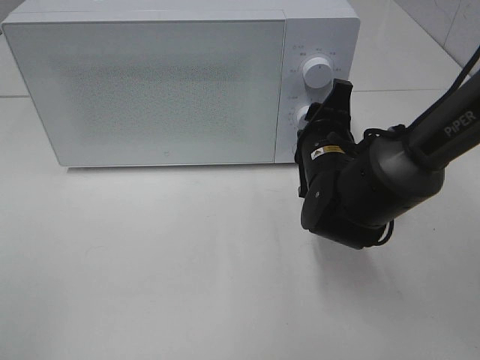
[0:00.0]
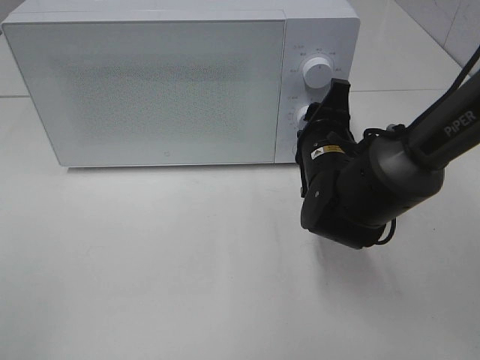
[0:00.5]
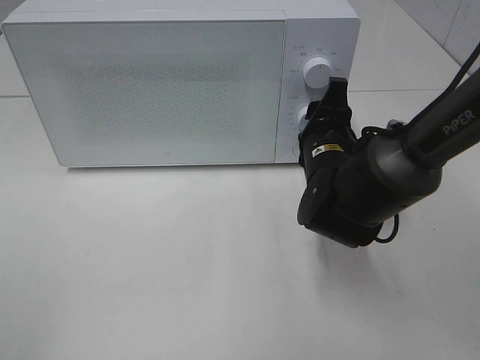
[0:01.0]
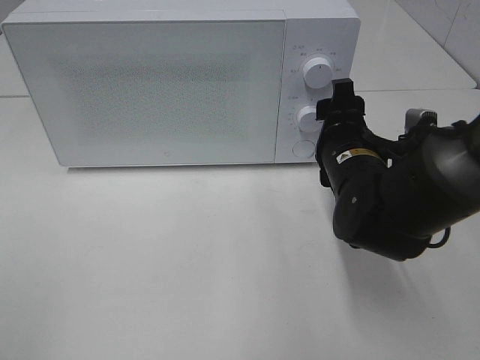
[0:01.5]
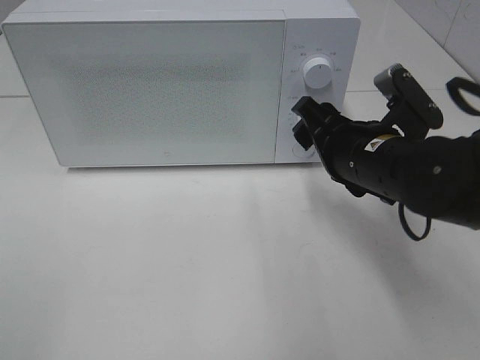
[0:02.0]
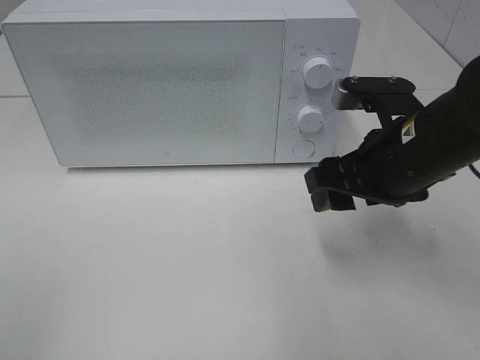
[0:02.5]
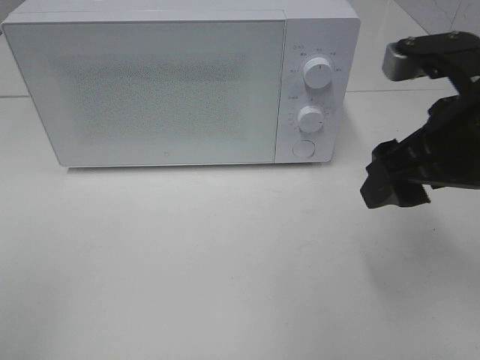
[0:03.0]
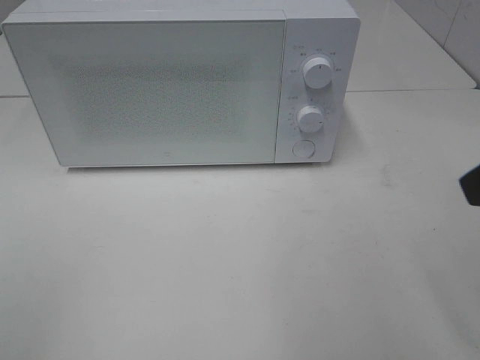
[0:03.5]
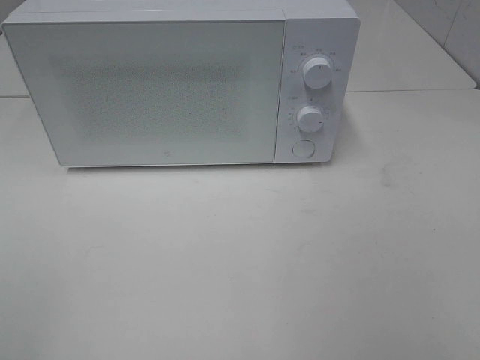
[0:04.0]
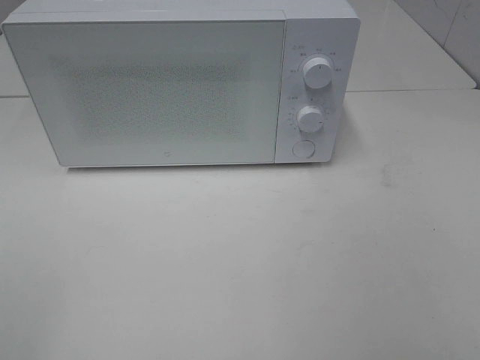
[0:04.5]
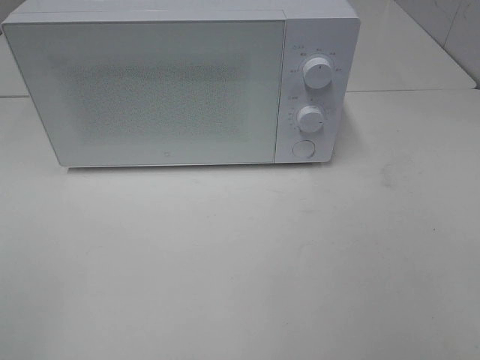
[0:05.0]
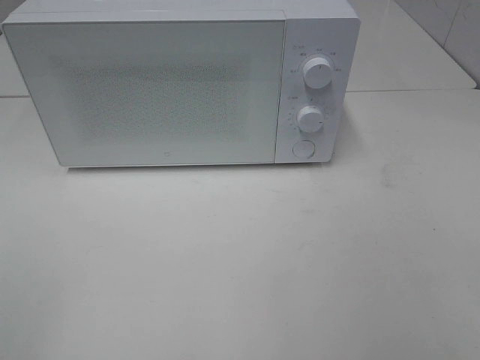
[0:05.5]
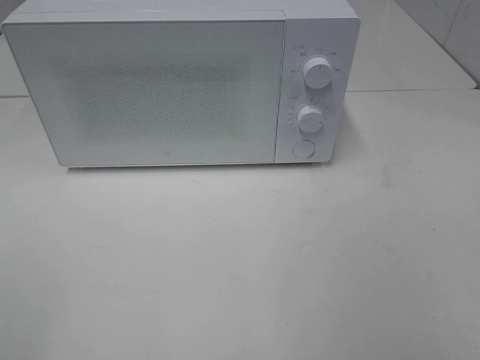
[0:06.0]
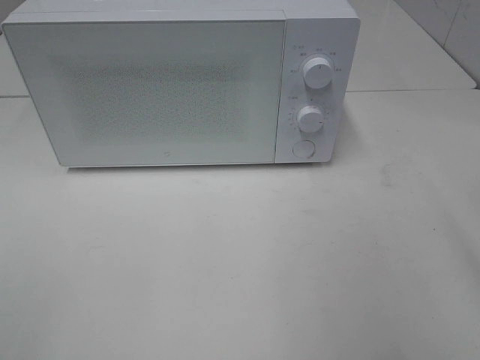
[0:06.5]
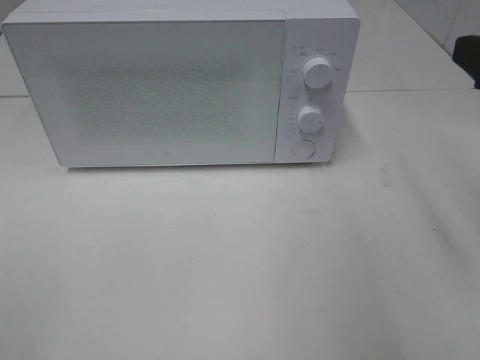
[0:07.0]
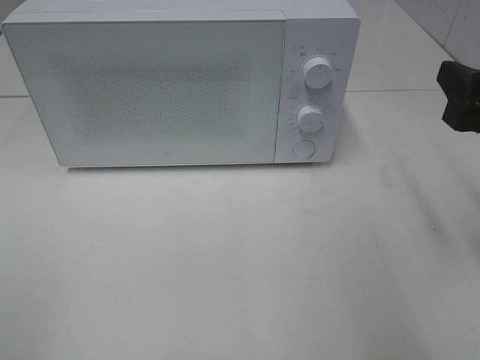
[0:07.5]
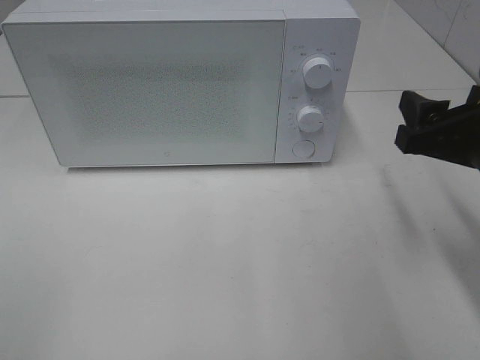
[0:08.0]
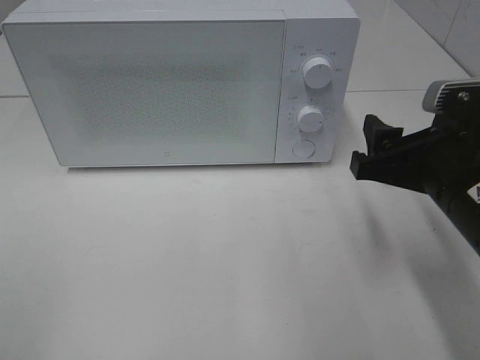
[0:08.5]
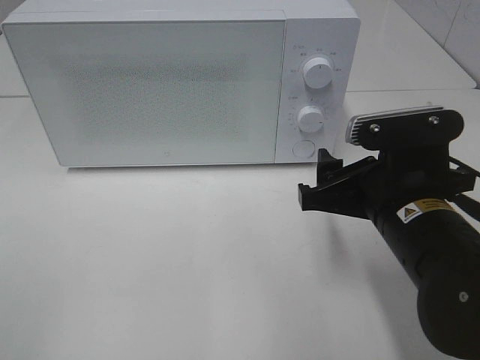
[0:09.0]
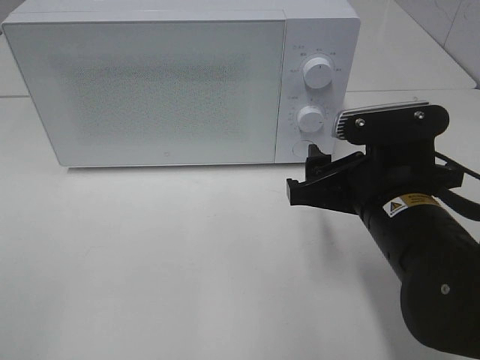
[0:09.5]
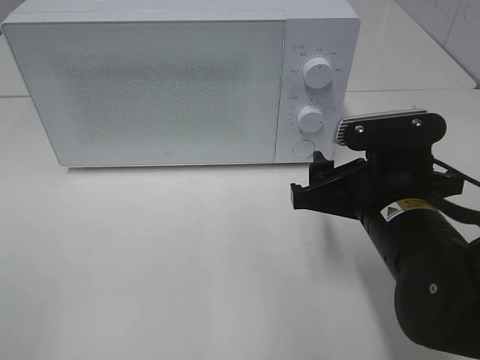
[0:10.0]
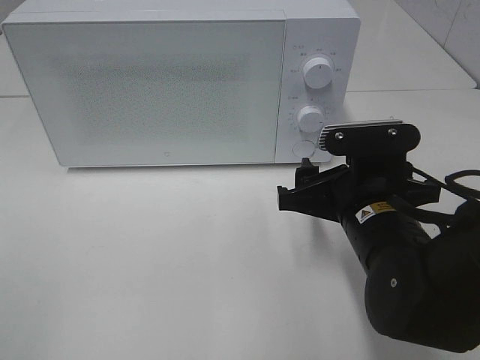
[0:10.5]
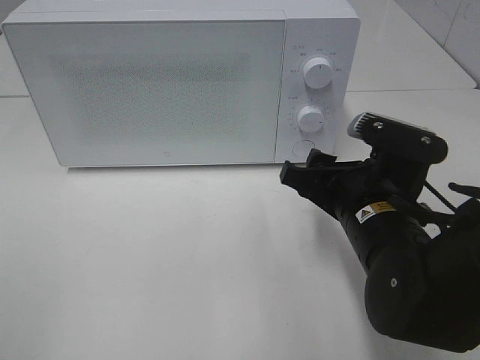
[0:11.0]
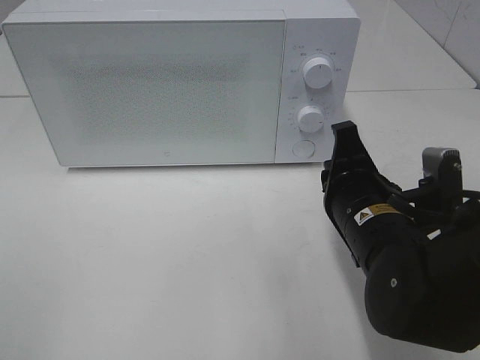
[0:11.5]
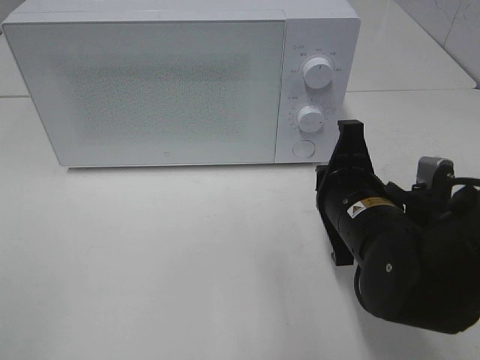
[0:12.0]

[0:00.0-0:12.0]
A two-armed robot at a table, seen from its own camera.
Task of the whole recording: Heat the burger.
0.0 to 2.0 s: The right gripper ends up about 5 cm from where it was.
2.0 to 4.0 s: The right gripper is displaced backward, upward and to the right by about 30 cm.
6.0 to 8.0 s: The right gripper is displaced forward and downward by some 20 cm.
8.0 to 10.0 s: The right gripper is displaced to the left and downward by approximately 10 cm.
10.0 to 12.0 s: The right gripper closes up.

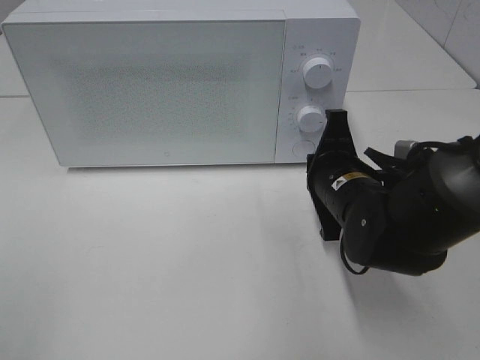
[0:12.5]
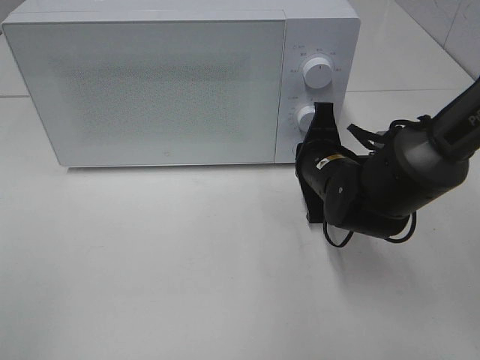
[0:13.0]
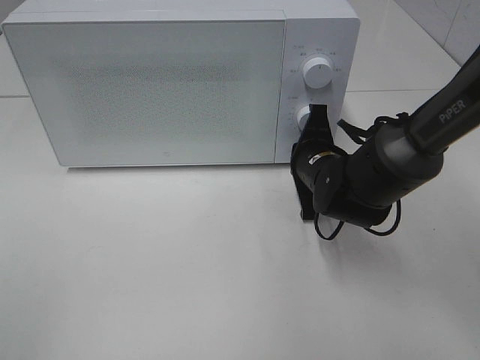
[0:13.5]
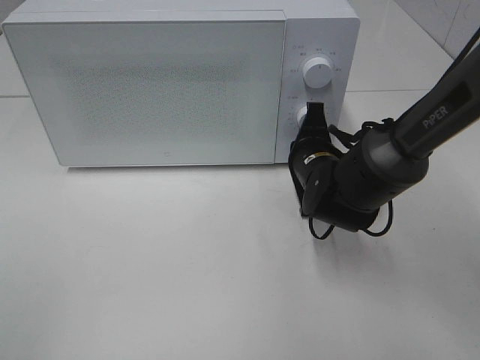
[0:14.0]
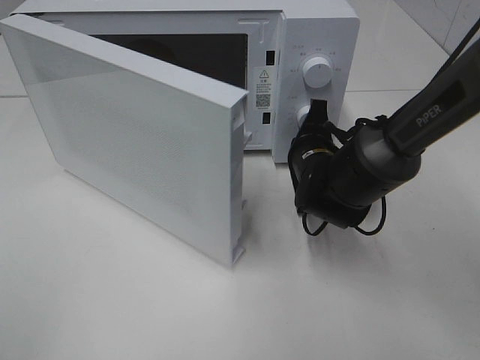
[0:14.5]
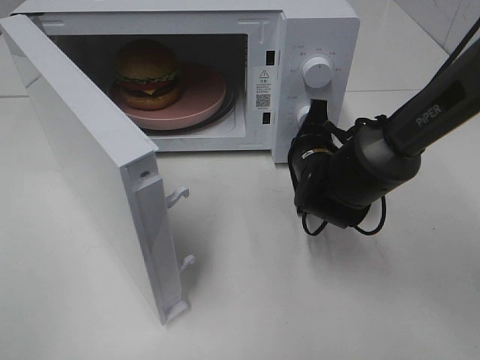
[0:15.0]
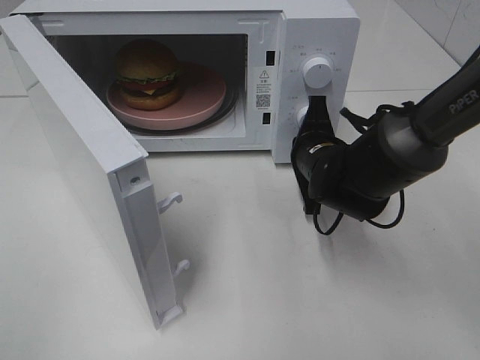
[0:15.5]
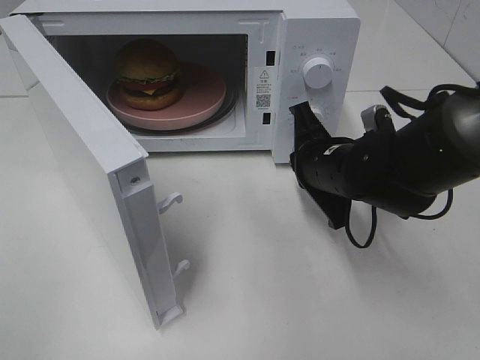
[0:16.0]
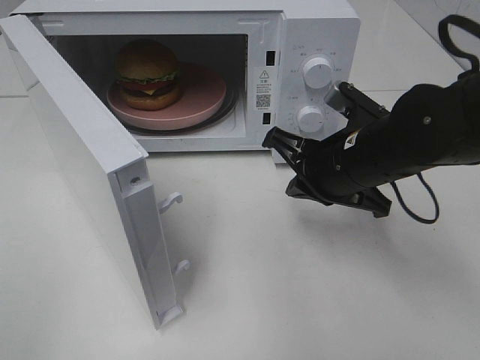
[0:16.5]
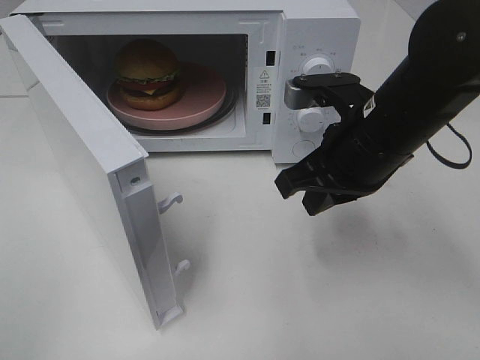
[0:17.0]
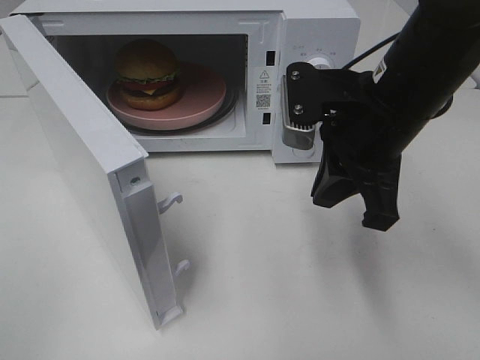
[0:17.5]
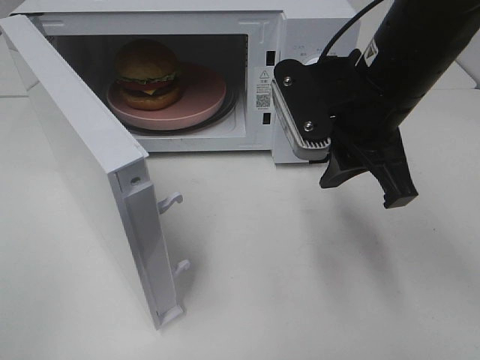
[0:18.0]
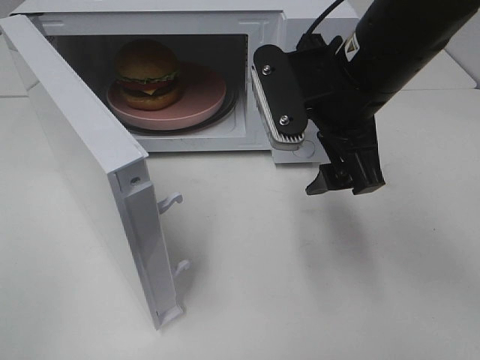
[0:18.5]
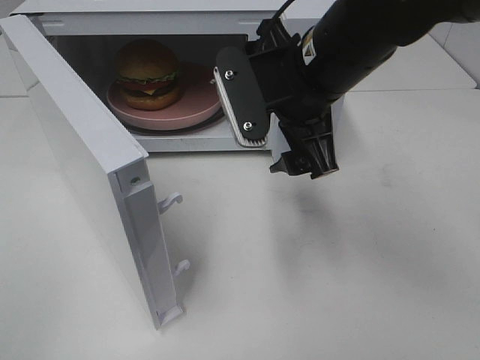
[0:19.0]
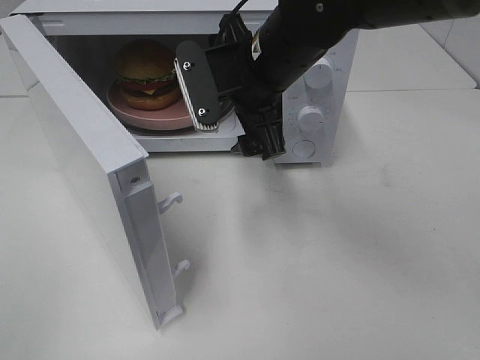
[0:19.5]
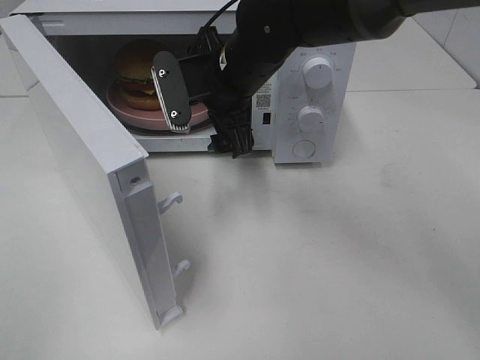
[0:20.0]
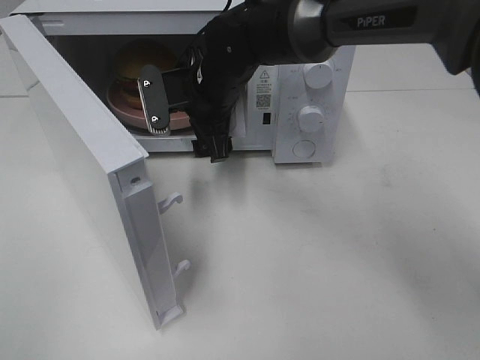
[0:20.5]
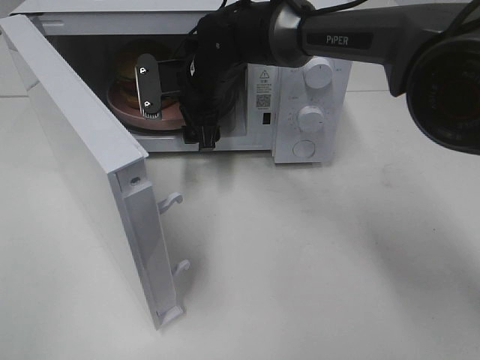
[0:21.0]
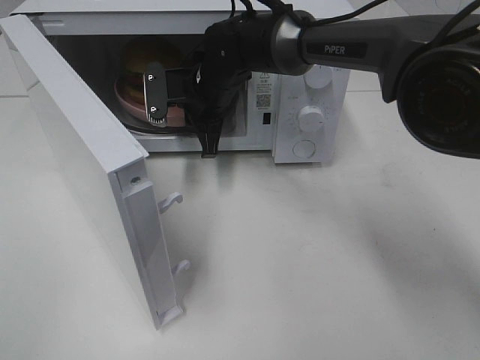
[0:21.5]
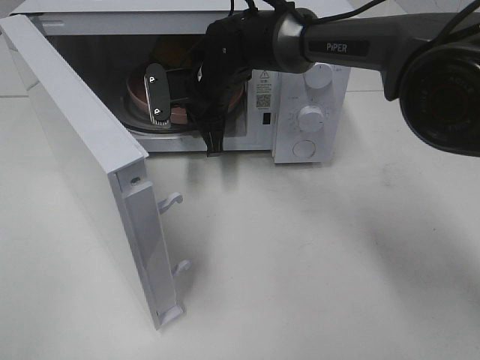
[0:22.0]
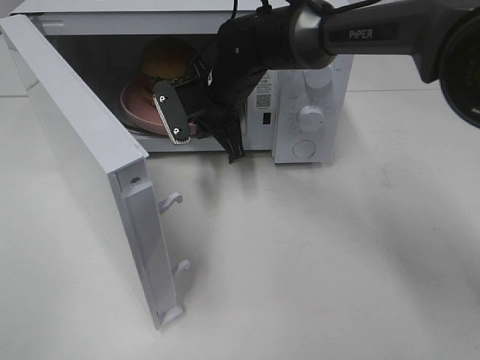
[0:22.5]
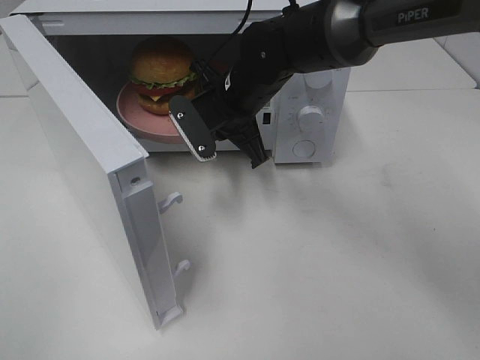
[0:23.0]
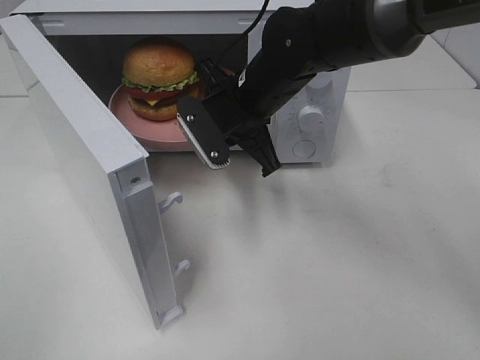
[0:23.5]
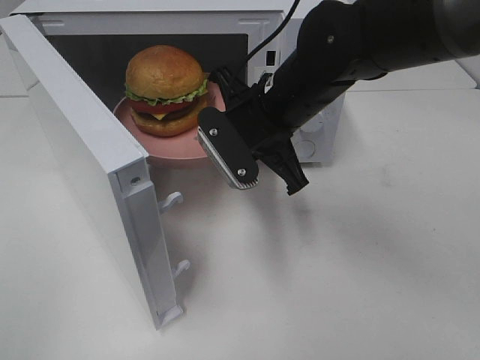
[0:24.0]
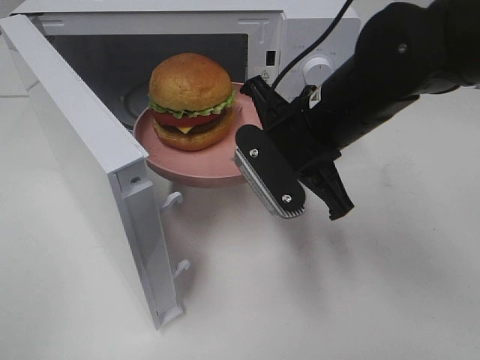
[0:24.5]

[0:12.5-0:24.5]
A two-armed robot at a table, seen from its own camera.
Task of the whole recording: Heat the burger.
Step, 12.5 to 16.0 s: Right hand: press the switch.
Step, 16.5 to 21.5 s: Right hand: grab the plate with the hamburger.
12.5 to 14.5 s: The right gripper is displaced forward by some 5 cm.
14.5 to 16.5 s: The right gripper moves backward and upward, about 10 cm.
16.5 to 18.5 s: The right gripper heads upward, covering about 10 cm, and opens its fingers.
18.5 to 20.5 s: The right gripper shifts some 20 cm forward, to the left and downward.
20.5 to 22.5 s: The right gripper closes its fingers.
22.5 to 24.5 s: The right gripper is displaced backward and to the right by approximately 20 cm.

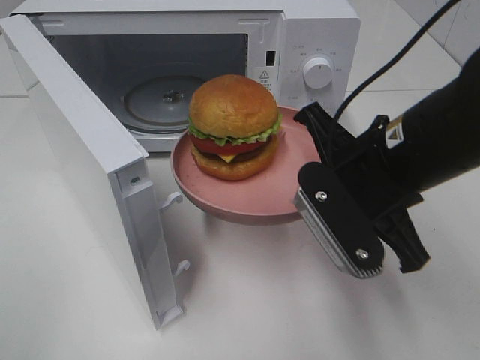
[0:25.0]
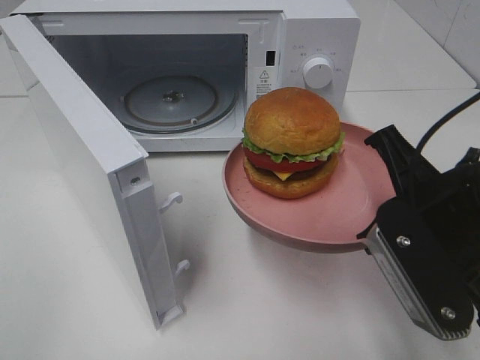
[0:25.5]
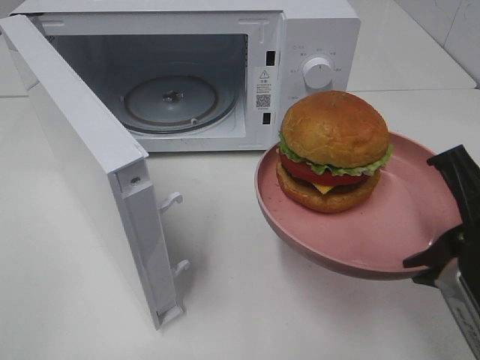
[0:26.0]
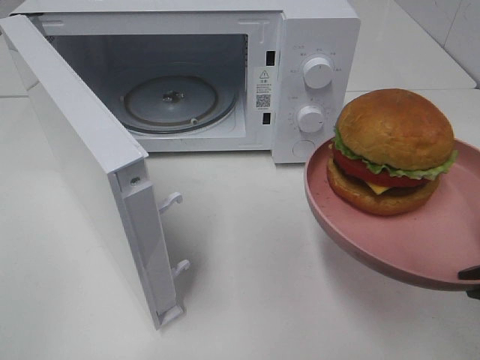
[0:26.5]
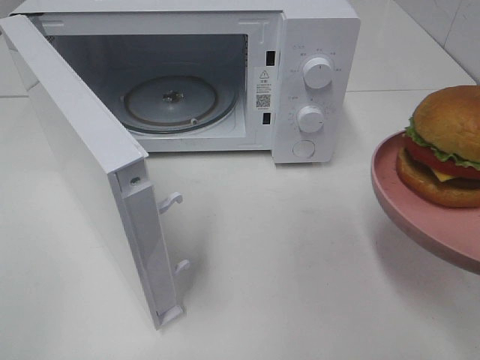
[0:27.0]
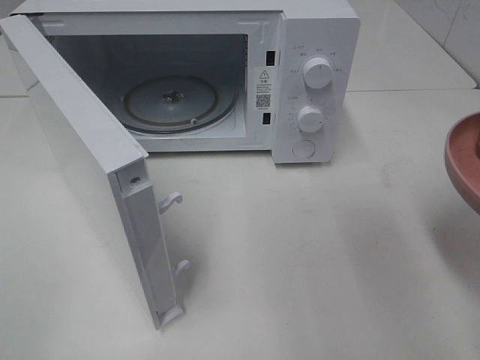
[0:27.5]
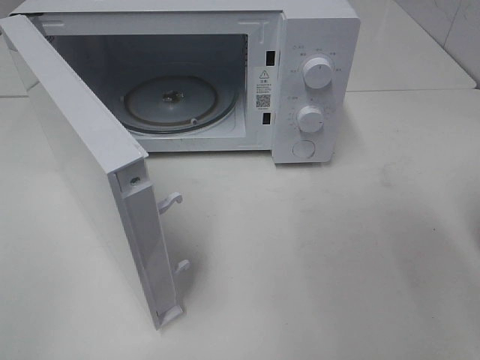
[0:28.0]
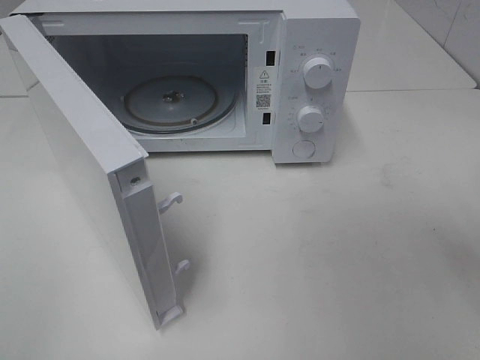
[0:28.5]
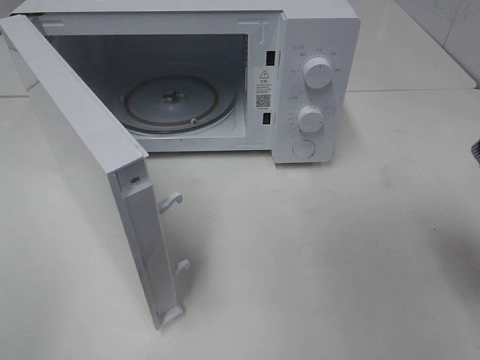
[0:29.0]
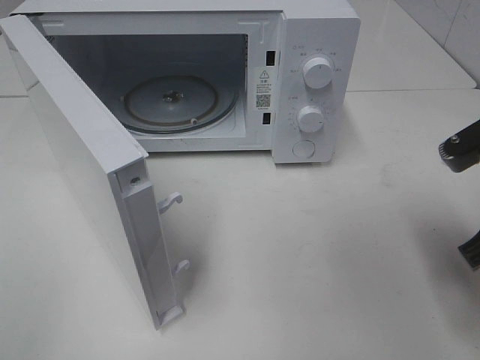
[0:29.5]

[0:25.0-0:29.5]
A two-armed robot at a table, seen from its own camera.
Task of the whole recording: Heat the burger.
25.0 to 27.0 s: The right gripper travels backward and to the right by roughly 15 cm.
27.0 to 29.5 s: The right gripper travels forward by approximately 10 cm.
